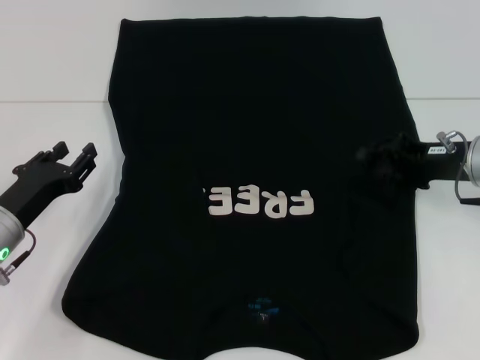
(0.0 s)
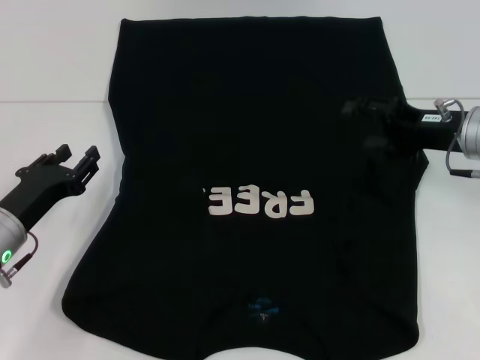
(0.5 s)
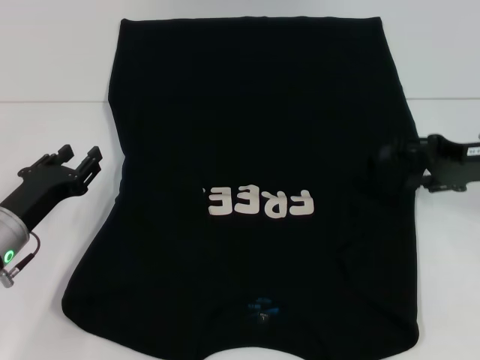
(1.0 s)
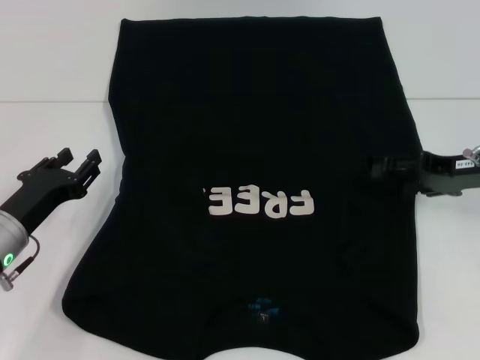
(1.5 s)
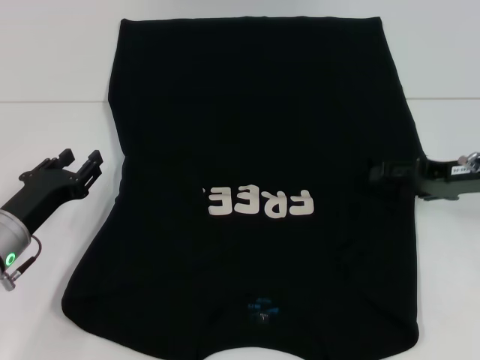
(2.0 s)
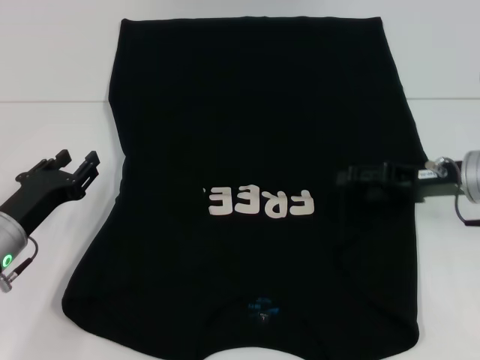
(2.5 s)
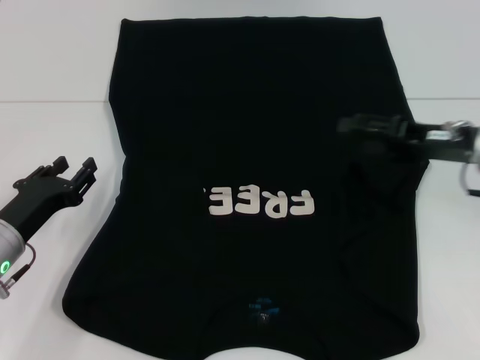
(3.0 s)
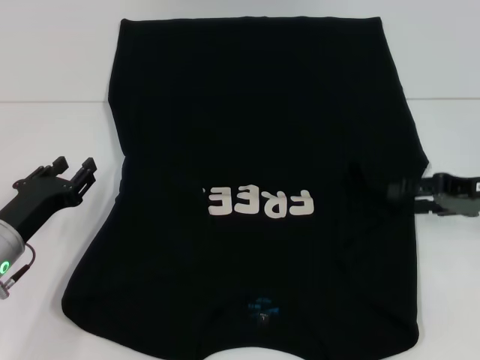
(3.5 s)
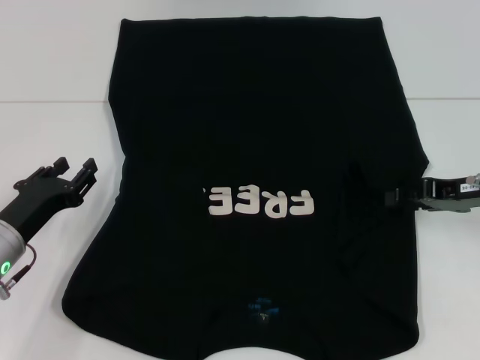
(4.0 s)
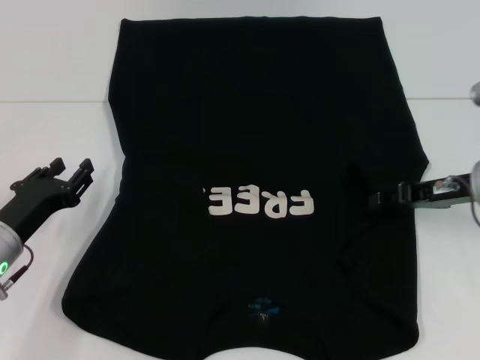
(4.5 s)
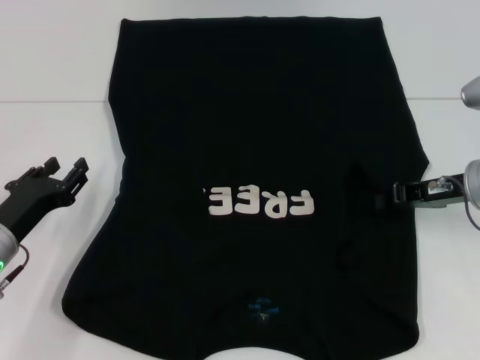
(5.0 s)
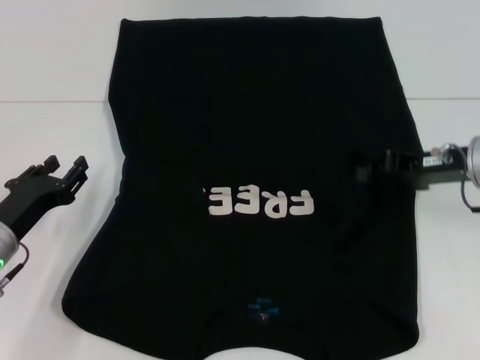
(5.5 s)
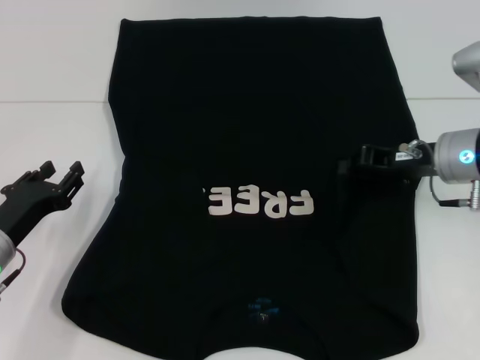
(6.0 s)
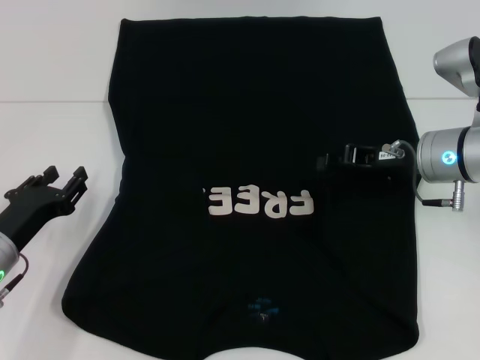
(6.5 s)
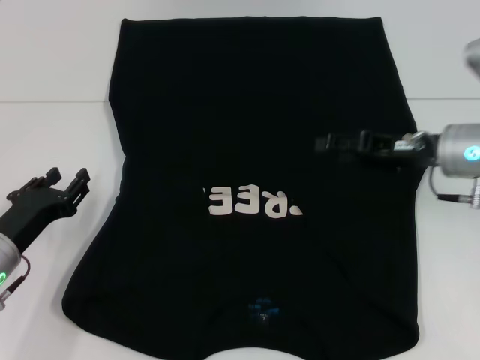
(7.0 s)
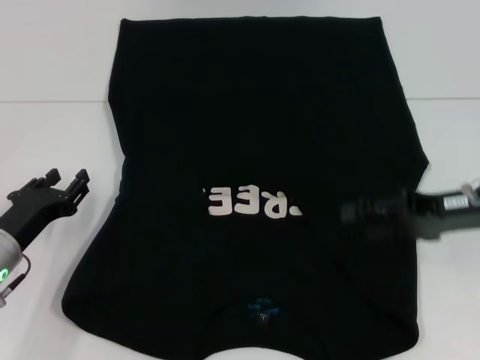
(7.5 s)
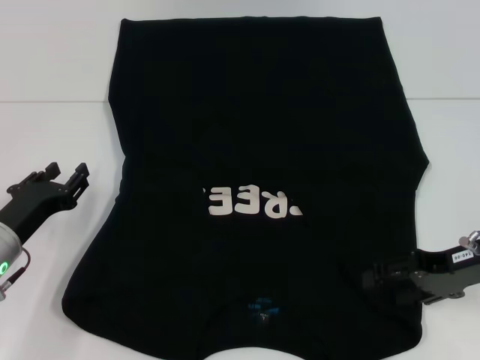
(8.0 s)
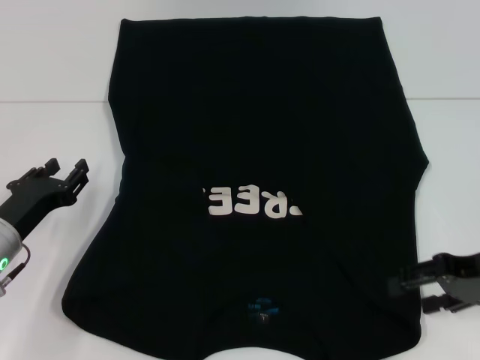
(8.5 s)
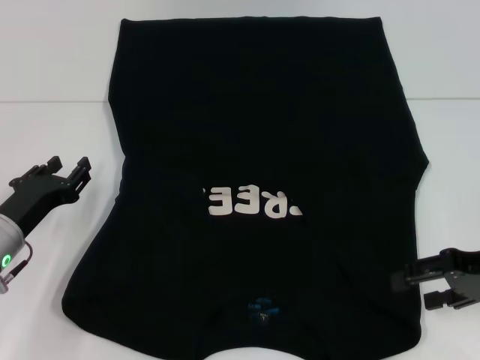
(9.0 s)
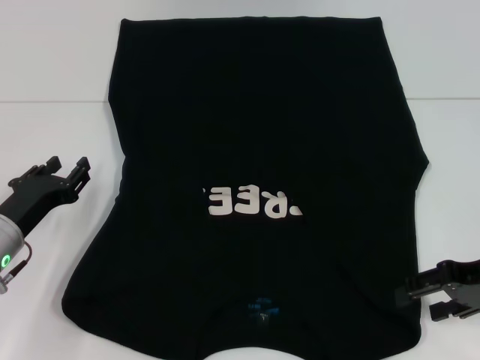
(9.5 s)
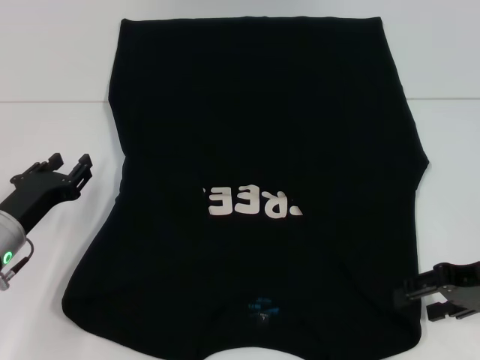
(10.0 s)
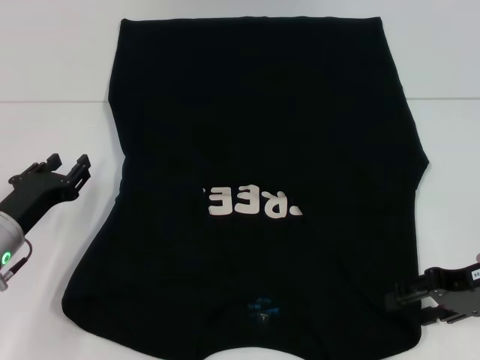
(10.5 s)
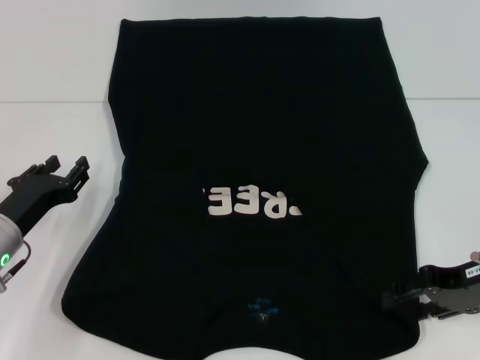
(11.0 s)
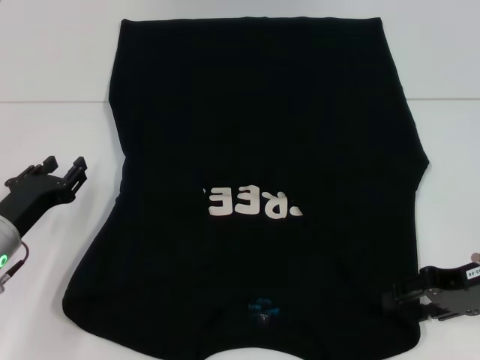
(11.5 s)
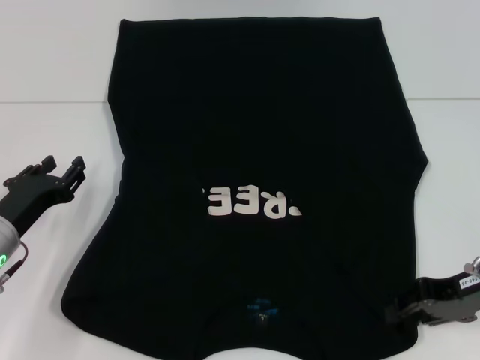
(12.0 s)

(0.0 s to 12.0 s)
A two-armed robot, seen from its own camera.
0.0 s - 2.0 s: The right gripper opens.
2.0 s - 4.0 s: The right gripper closes up.
4.0 s - 6.0 s: The right gripper goes roughly 5 cm to the left, and closes.
6.0 s - 8.0 s: The right gripper travels backward by some 10 cm, and opens.
8.0 s - 12.0 s: The grippers stay close to where they were, moving slightly.

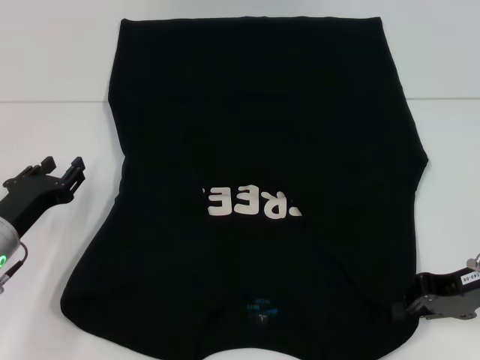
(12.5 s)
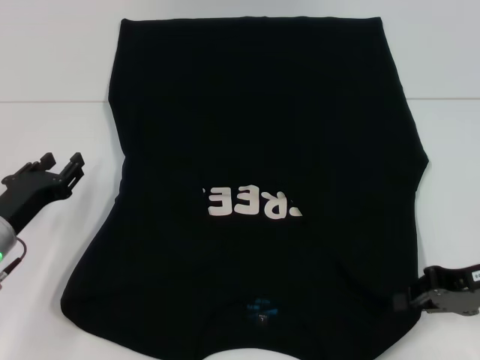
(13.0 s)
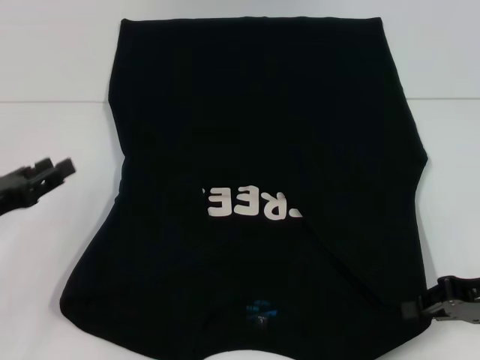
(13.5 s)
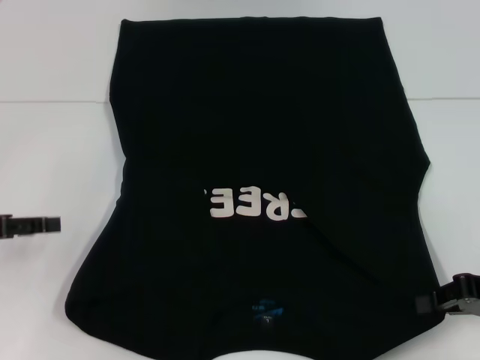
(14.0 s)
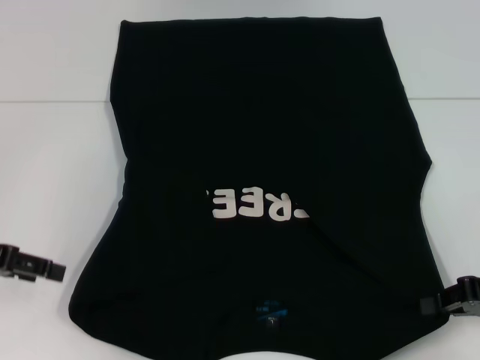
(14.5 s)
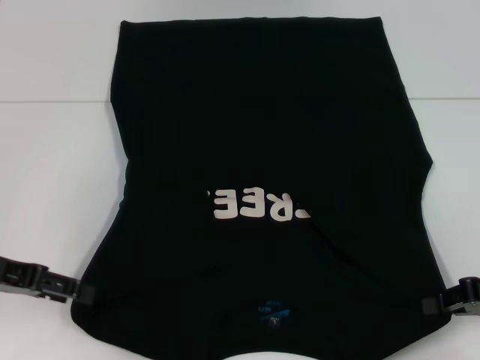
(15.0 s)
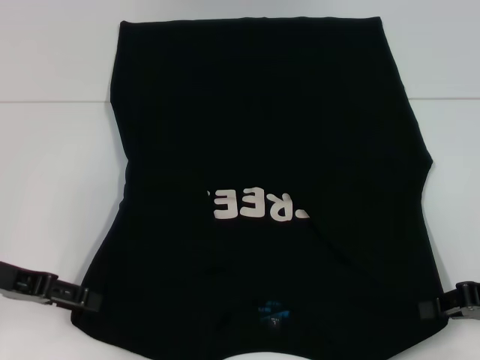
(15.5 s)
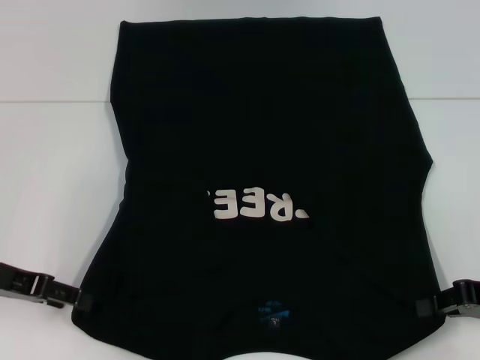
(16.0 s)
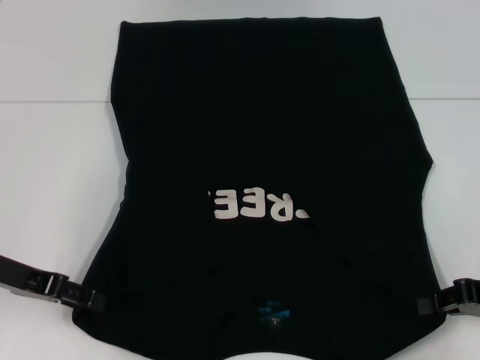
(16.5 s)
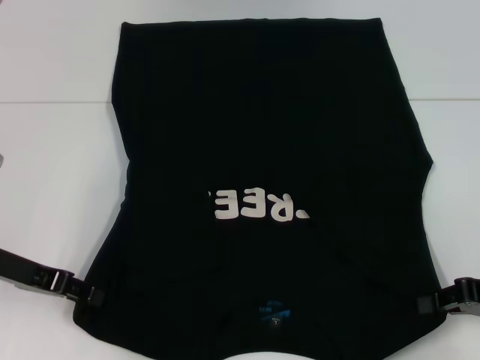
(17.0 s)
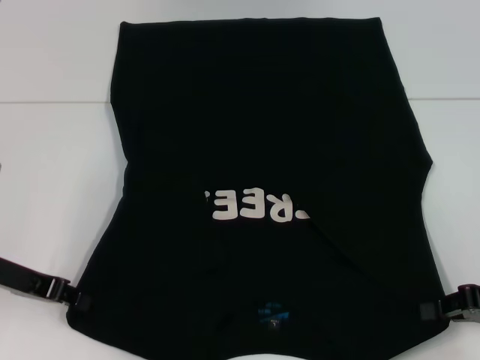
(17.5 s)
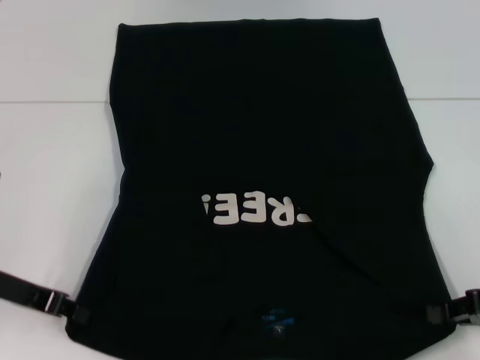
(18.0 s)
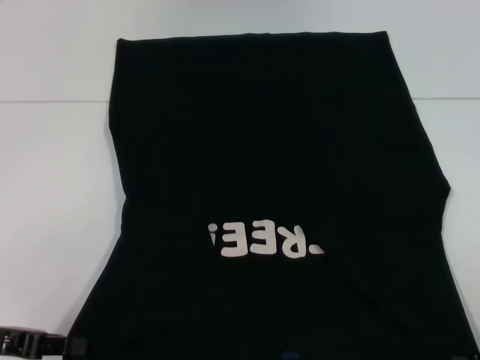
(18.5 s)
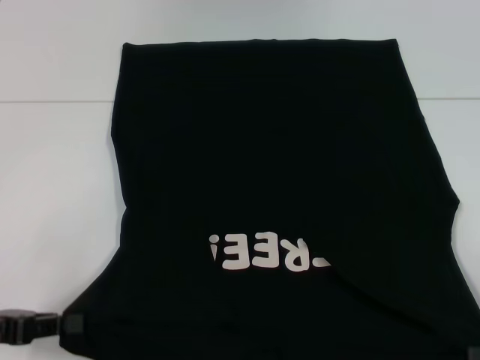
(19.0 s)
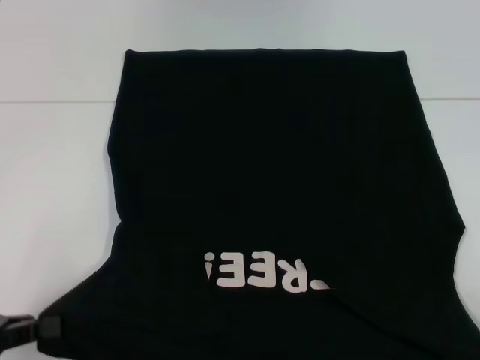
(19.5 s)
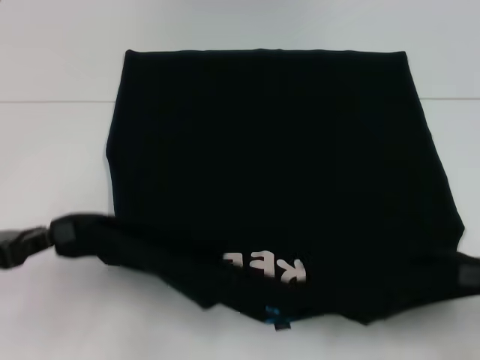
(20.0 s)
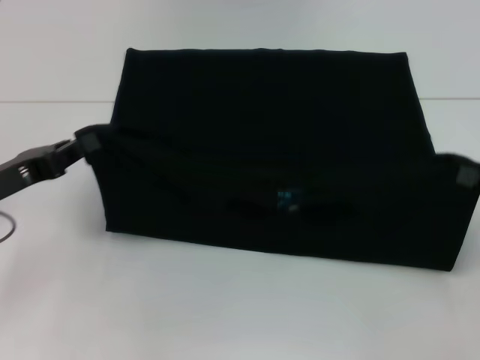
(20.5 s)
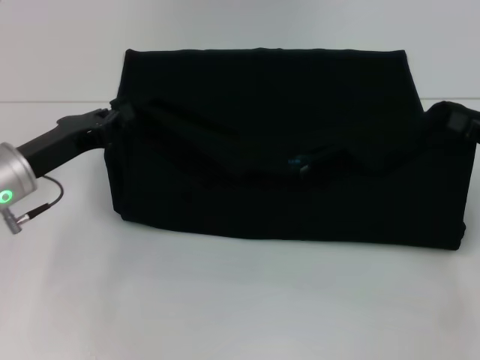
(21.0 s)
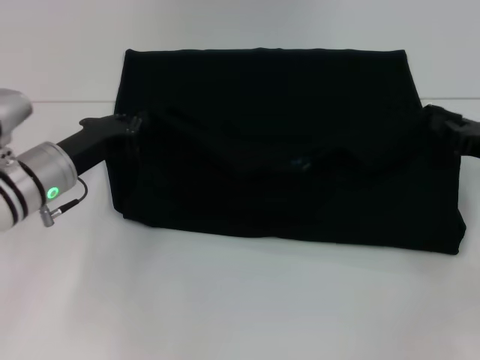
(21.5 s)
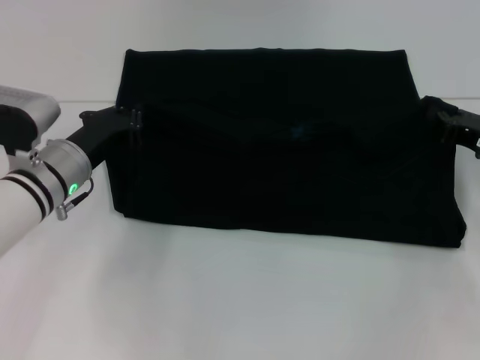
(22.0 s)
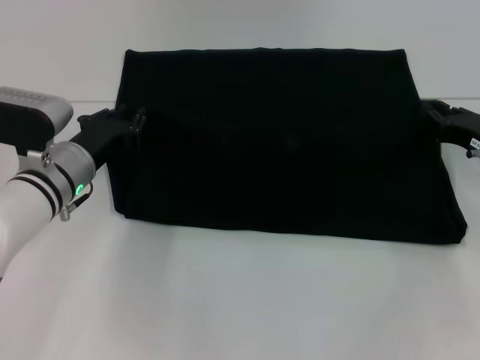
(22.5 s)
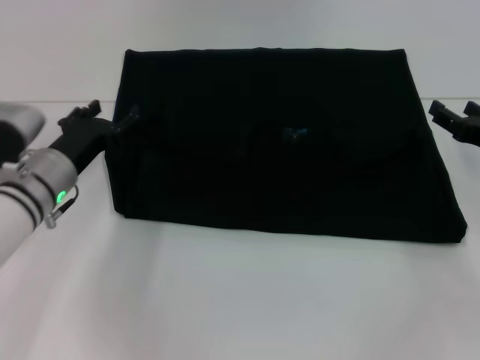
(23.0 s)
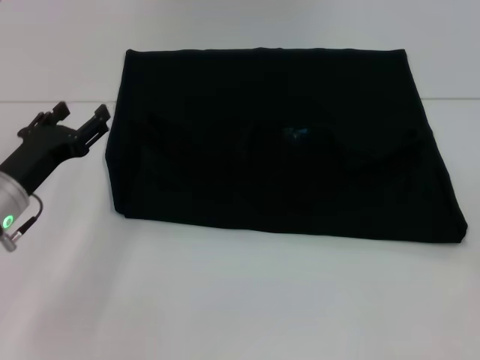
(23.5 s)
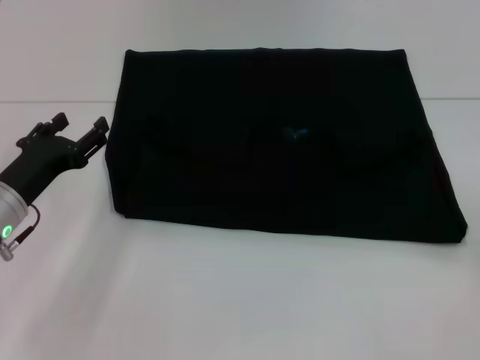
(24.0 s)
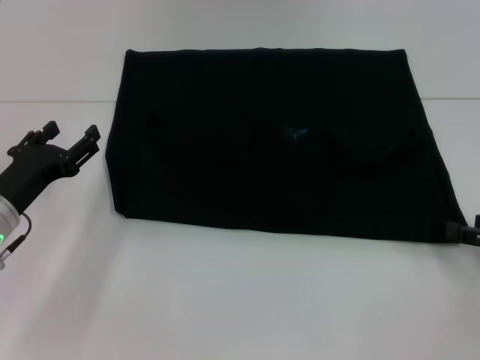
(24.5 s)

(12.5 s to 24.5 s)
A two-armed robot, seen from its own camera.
Step, 13.0 s - 17.5 s: Grab the bottom left corner with your left hand.
Step, 18.0 s - 23.0 s: Fold the clothes with your left hand.
Step, 18.0 s - 23.0 s: Fold the clothes with your right hand.
12.5 s - 14.5 s: The right gripper shifts by some 5 cm, while the left gripper shifts some 15 cm upward and to the left.
14.5 s - 16.5 s: The left gripper shifts by some 5 cm.
16.5 s - 18.5 s: The two grippers go about 5 cm backward. The left gripper closes.
18.5 s - 20.5 s: The left gripper travels forward by some 5 cm. Meanwhile the right gripper is displaced forward and upward by some 10 cm.
20.5 s - 22.5 s: The left gripper moves to the right and forward, about 15 cm; the right gripper heads forward and to the left, covering some 10 cm.
22.5 s - 24.5 s: The left gripper travels backward and to the left by approximately 10 cm, and opens its fingers, while the right gripper moves backward and to the right, about 10 cm, and opens its fingers.

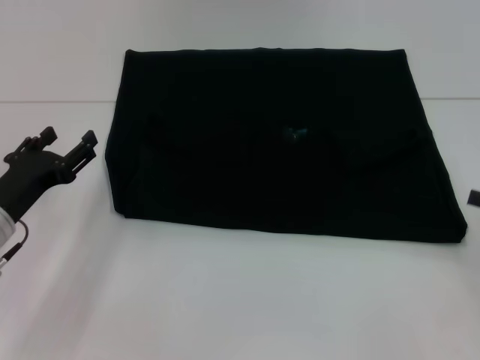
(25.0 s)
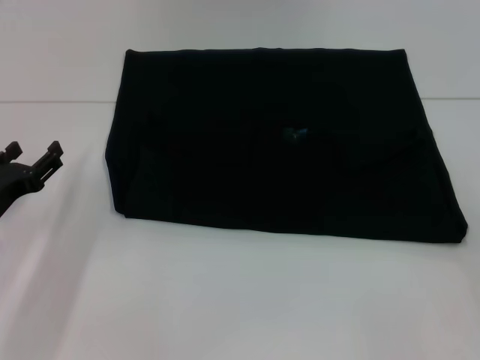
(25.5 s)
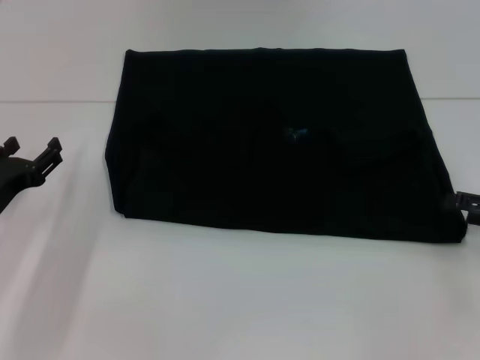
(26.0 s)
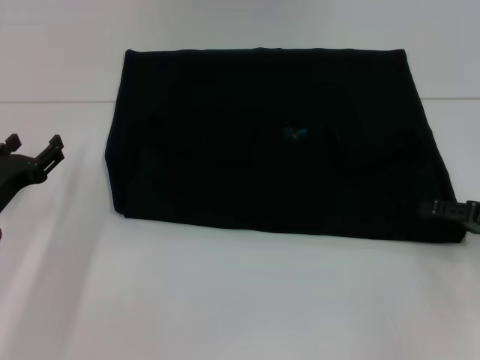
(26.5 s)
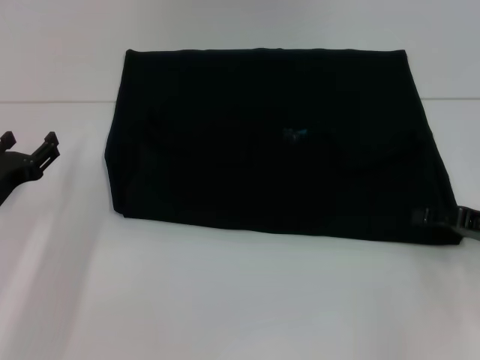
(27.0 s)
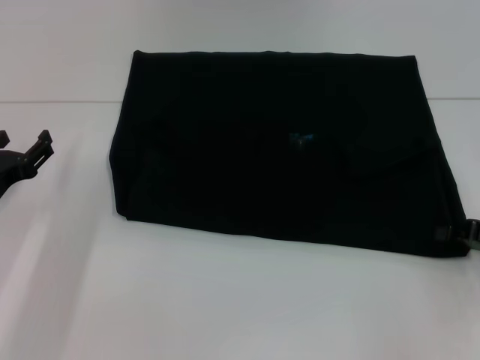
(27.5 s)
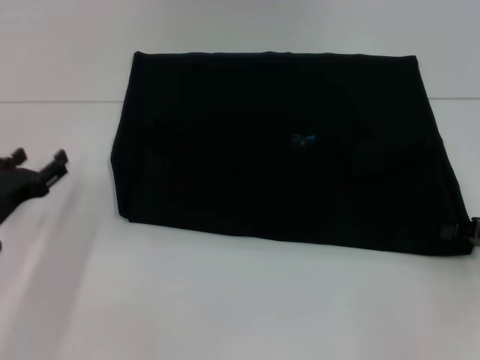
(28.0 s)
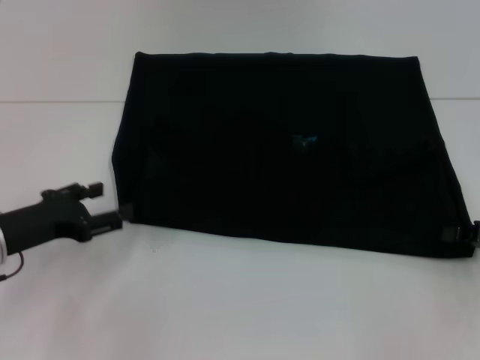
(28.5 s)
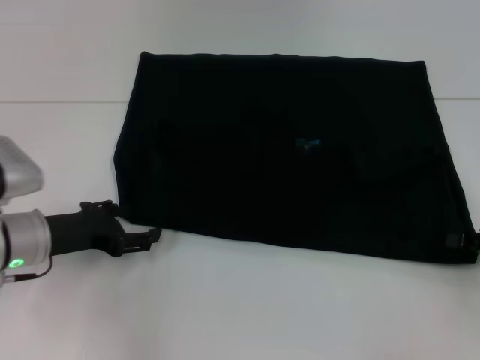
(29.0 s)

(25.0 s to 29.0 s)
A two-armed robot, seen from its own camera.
25.0 s - 27.0 s: The right gripper moves to the left, about 5 cm.
27.0 s - 29.0 s: The right gripper closes up.
